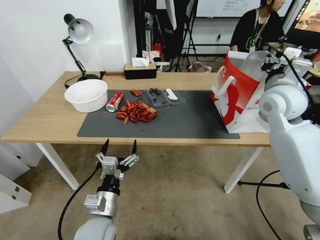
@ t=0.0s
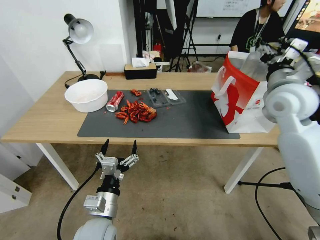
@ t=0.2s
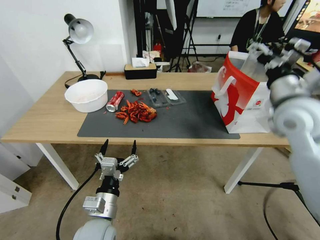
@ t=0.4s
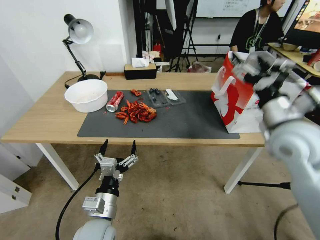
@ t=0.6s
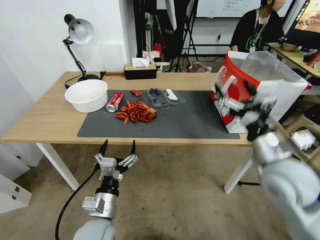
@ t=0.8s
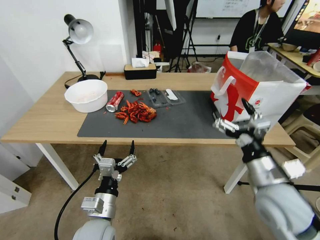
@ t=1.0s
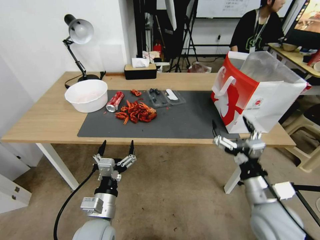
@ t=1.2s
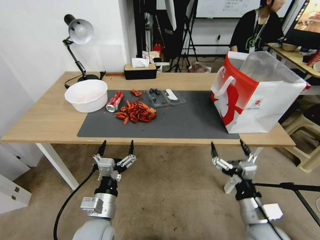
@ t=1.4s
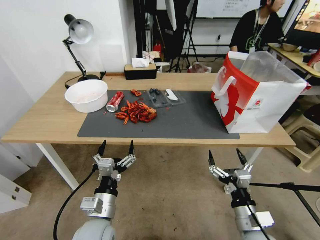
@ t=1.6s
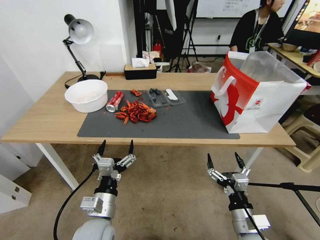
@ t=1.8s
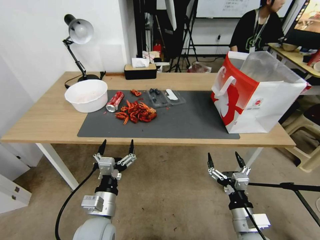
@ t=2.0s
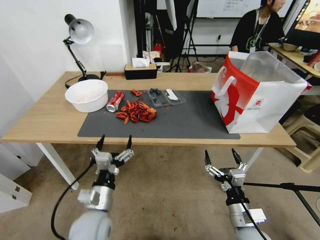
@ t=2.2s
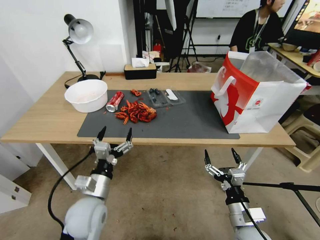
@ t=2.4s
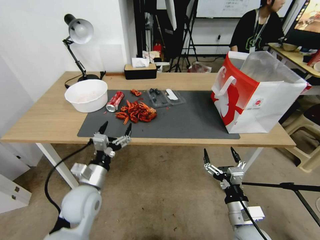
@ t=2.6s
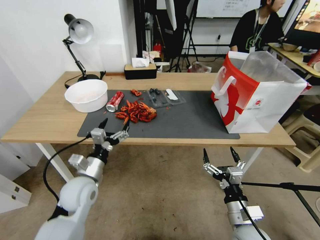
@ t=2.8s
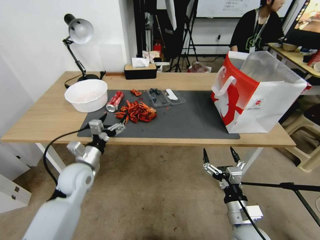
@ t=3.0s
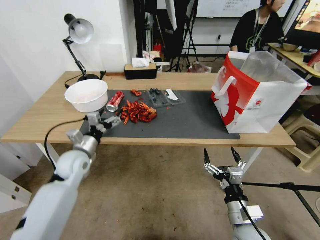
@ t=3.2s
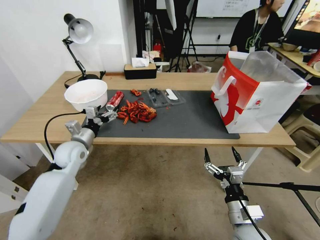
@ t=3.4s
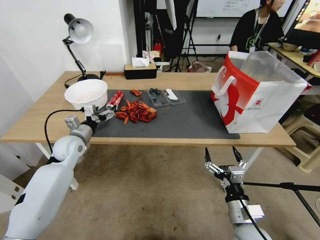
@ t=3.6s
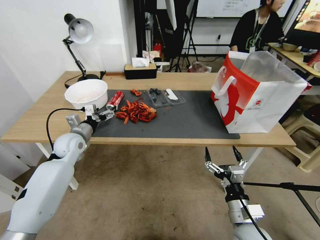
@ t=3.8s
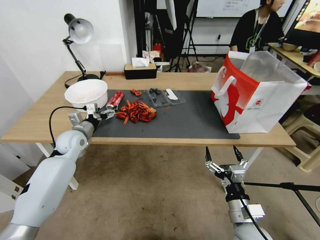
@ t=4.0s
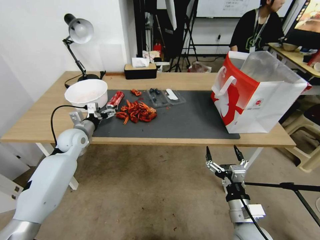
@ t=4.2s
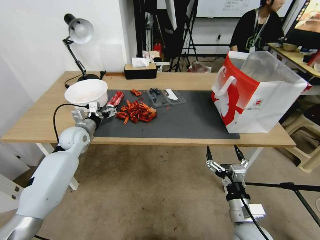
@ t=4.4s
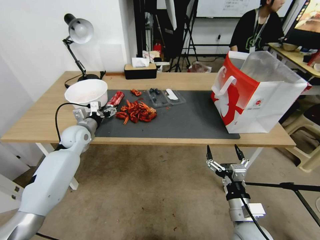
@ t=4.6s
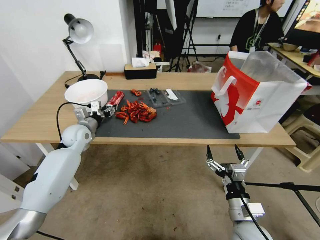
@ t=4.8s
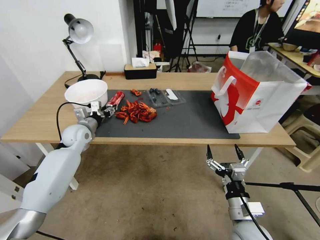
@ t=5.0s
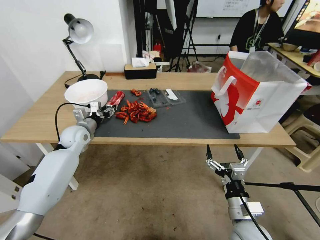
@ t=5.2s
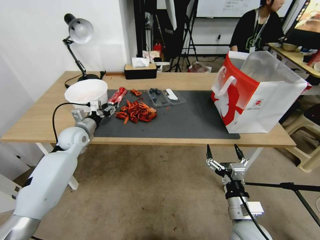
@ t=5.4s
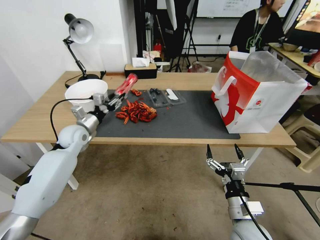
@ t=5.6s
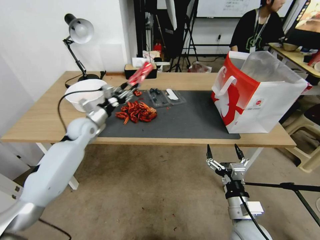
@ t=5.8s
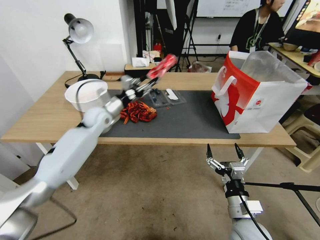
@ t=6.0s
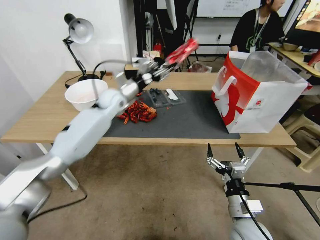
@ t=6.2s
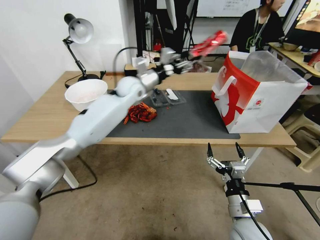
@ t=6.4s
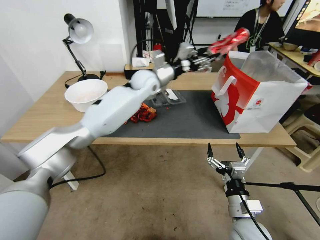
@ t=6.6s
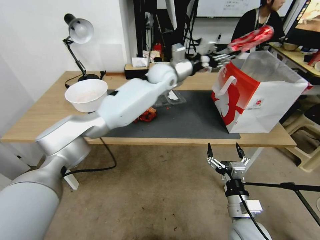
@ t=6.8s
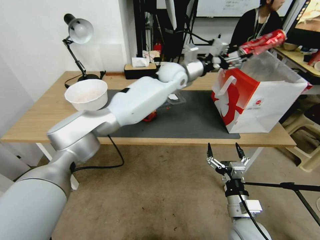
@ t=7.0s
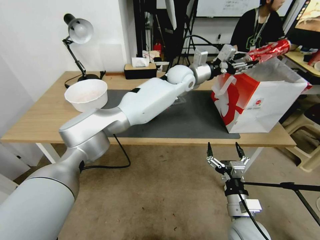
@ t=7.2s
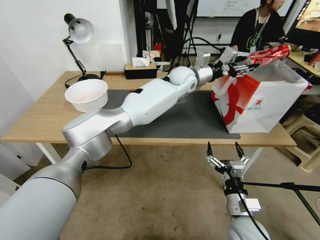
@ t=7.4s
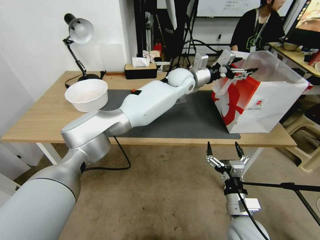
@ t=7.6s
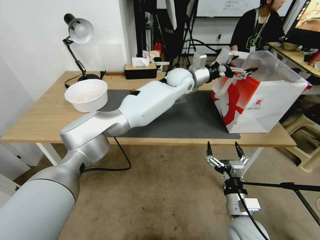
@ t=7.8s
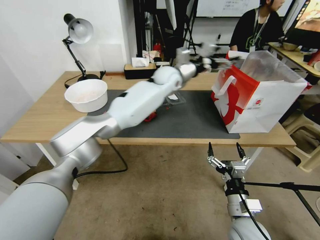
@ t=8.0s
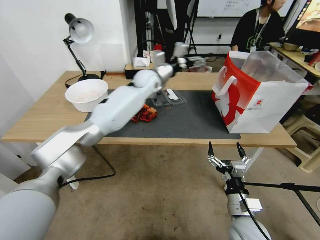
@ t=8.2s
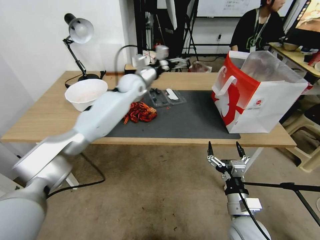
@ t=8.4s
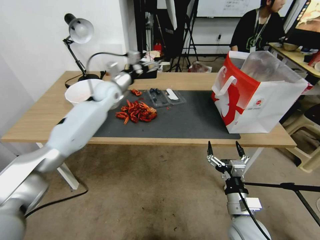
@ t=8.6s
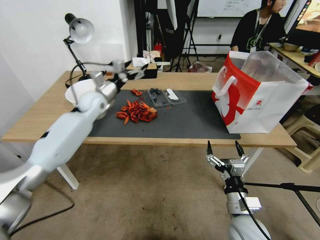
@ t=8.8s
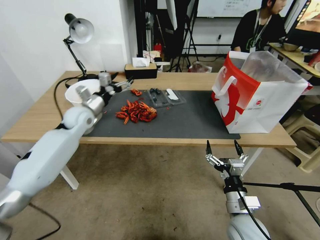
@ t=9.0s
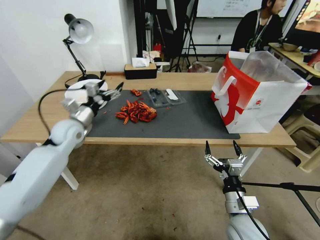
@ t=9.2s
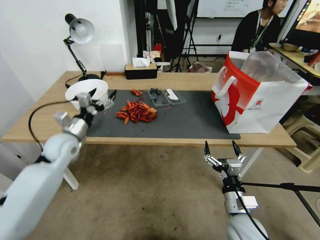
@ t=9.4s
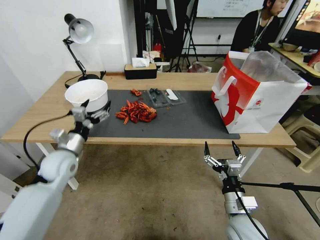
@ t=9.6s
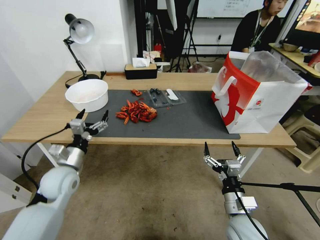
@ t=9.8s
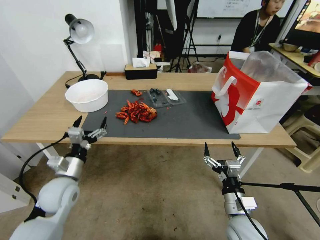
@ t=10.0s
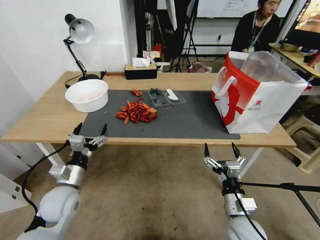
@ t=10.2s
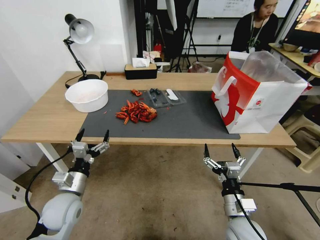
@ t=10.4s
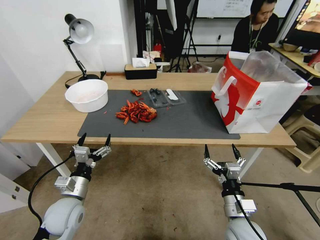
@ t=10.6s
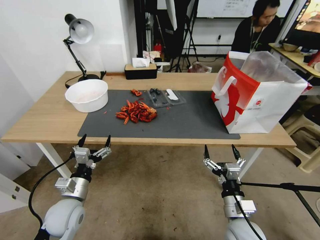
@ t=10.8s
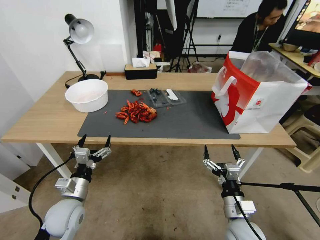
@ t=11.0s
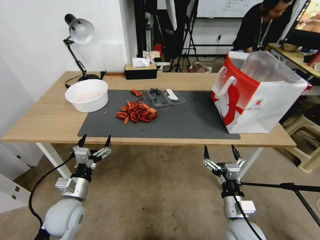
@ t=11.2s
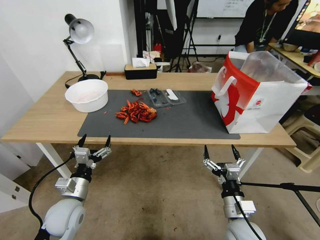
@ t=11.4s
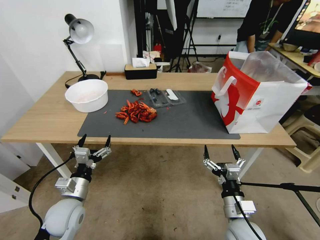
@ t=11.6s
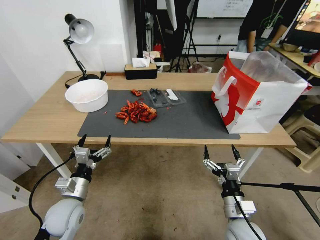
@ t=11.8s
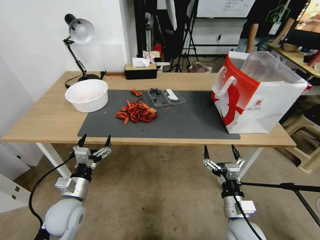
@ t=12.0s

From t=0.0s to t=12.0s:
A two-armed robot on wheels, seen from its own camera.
From t=0.0s to t=1.6s: The right gripper shifts approximately 40 cm backward and downward, and opens up.
From t=1.6s to t=3.0s: The left gripper shifts about 15 cm forward and to the left.
From t=3.0s to t=4.4s: The left gripper is displaced forward and to the left by approximately 15 cm.
From t=4.4s to t=6.0s: The left gripper travels to the right, upward and forward by some 10 cm, and closes its fingers.
From t=6.0s to t=7.6s: The left gripper heads to the right, covering approximately 30 cm, and opens.
From t=7.6s to t=9.0s: The left gripper travels to the left by approximately 35 cm, and opens its fingers.
From t=9.0s to t=10.4s: The left gripper goes about 30 cm backward and downward.
From t=10.4s to t=12.0s: The grippers move only a little.

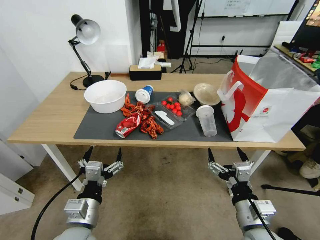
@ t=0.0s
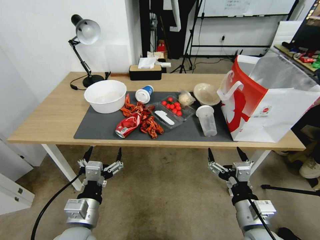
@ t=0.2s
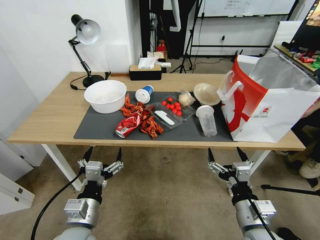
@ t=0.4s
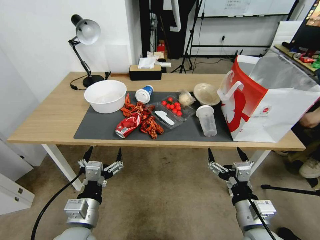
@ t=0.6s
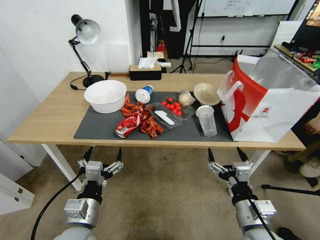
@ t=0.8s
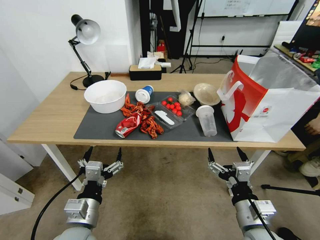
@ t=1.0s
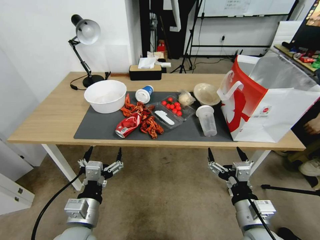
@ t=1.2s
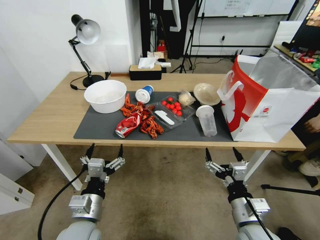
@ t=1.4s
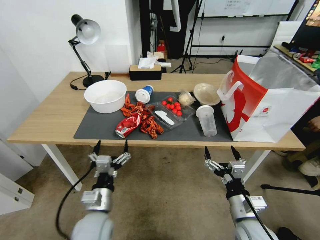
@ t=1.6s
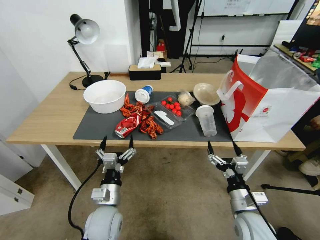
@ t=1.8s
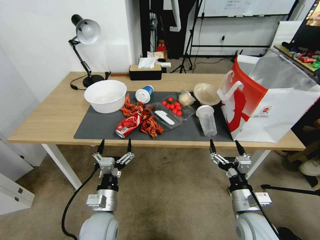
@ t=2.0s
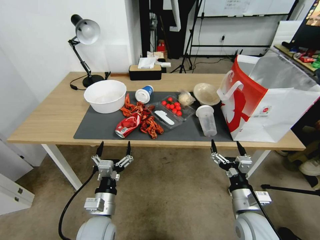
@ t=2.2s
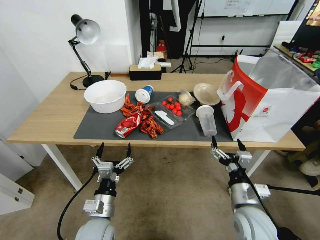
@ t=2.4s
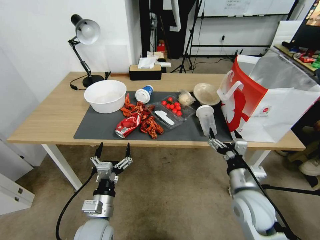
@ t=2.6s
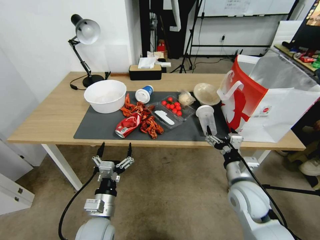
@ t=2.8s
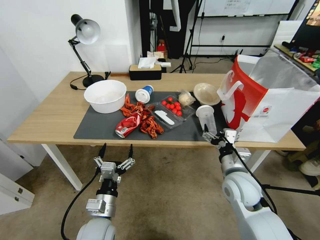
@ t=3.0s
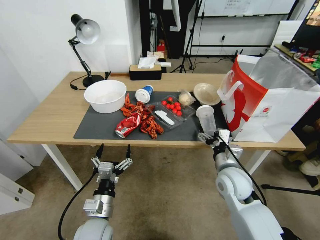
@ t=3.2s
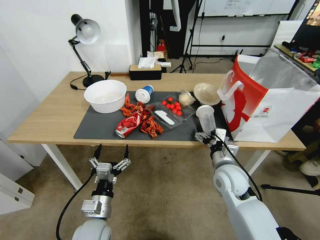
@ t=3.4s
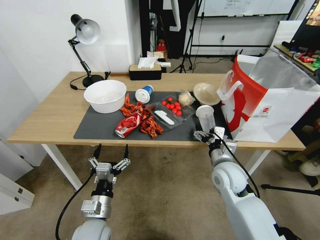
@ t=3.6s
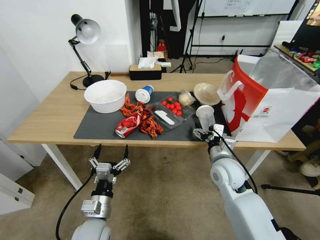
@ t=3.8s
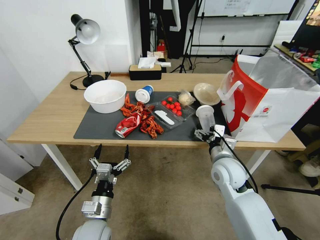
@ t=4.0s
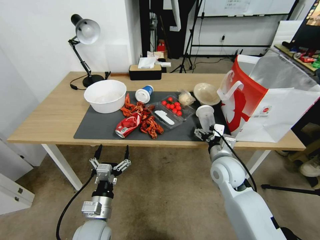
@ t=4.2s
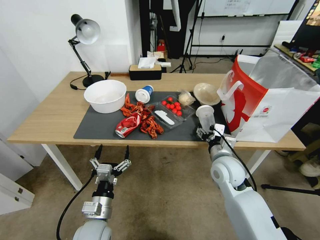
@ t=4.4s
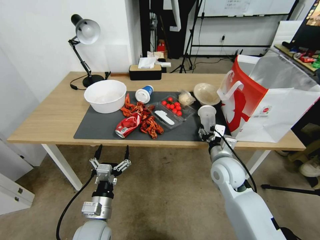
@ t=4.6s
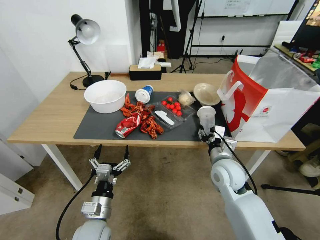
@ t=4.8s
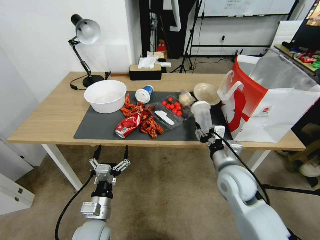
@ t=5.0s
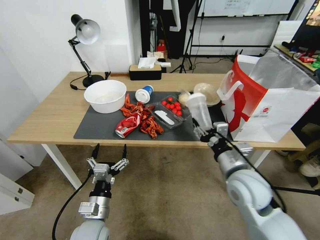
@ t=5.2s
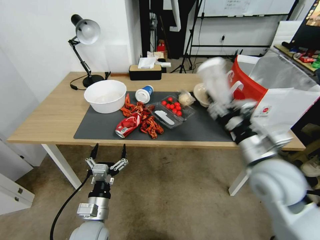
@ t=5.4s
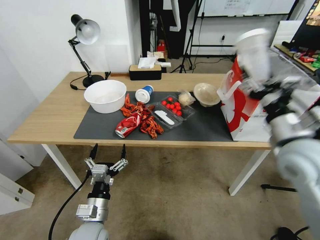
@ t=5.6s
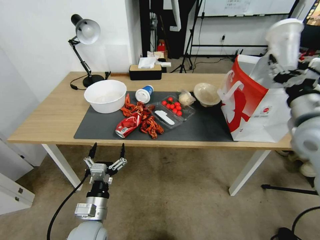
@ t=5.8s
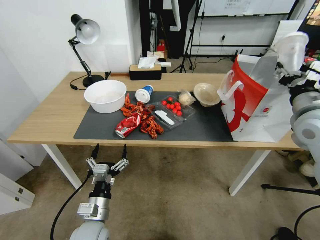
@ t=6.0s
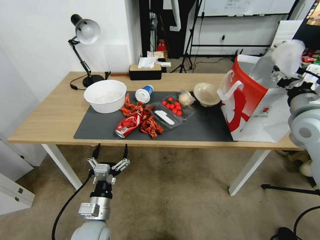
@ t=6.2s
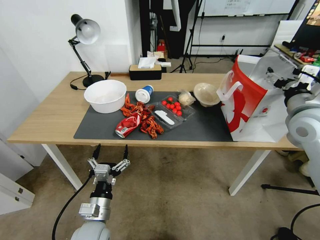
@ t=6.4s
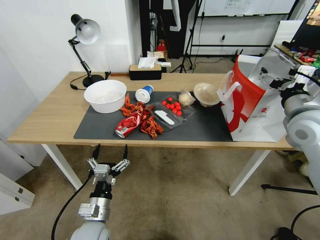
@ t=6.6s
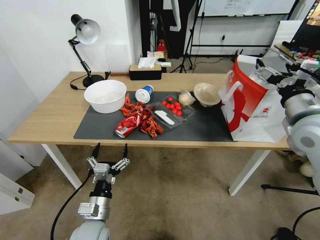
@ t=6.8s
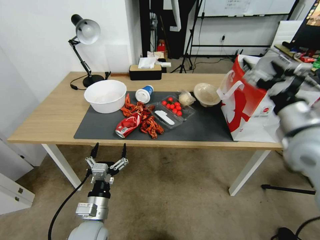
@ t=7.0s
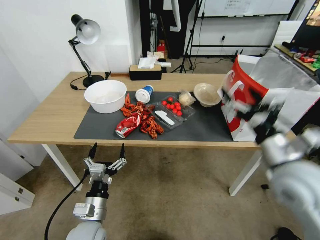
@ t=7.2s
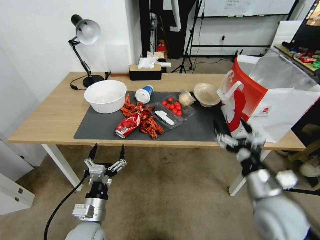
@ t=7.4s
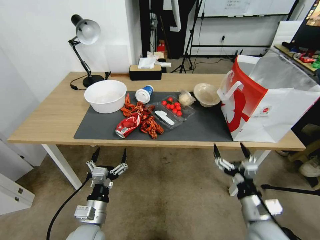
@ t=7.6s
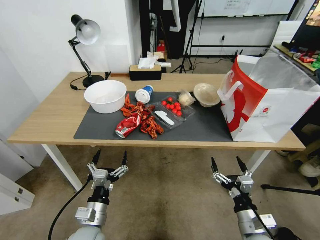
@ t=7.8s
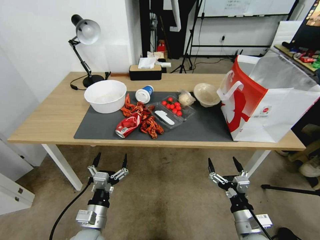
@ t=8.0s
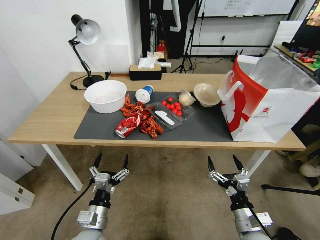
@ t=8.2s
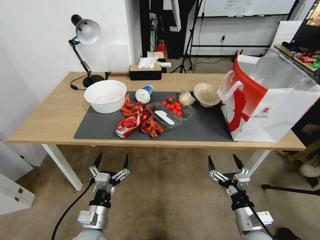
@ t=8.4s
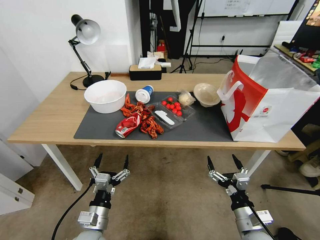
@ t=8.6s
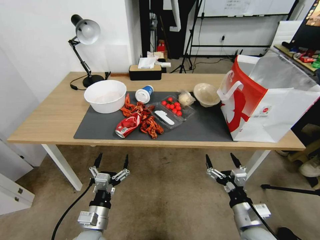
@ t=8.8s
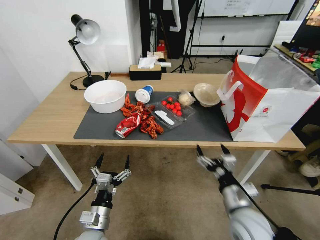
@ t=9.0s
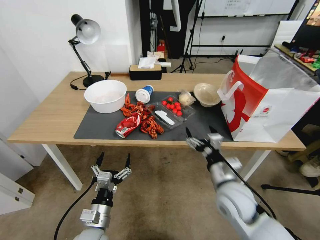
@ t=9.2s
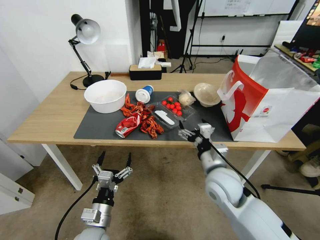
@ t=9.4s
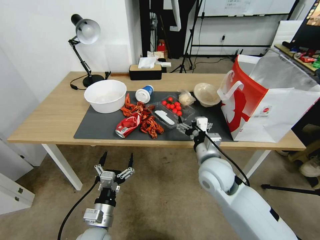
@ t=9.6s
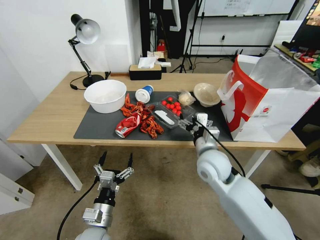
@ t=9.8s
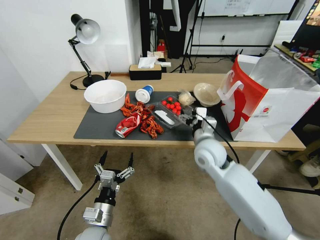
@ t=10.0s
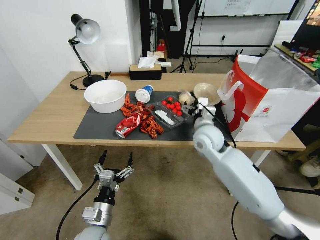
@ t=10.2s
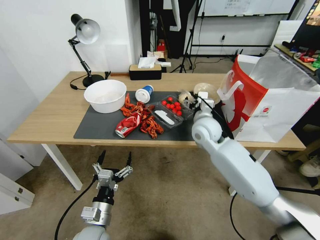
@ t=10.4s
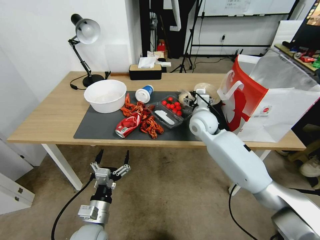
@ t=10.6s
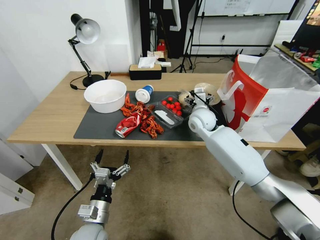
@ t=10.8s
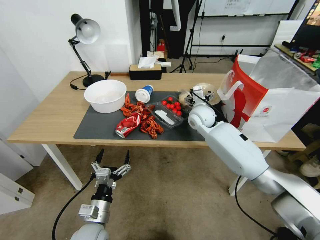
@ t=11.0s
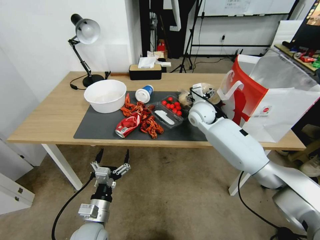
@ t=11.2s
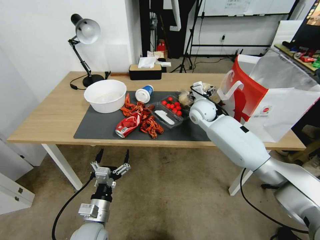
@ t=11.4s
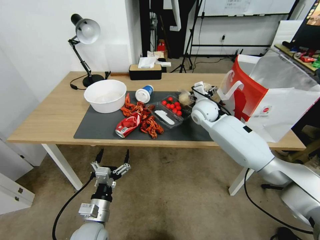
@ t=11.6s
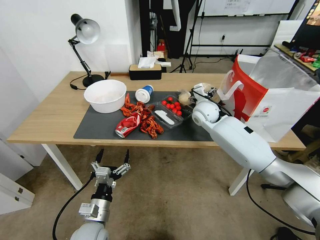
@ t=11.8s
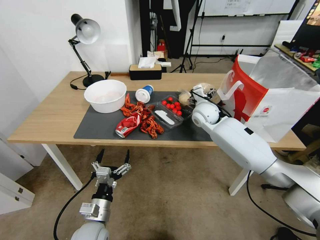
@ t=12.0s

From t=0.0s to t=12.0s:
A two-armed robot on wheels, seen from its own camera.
From t=1.6s to t=3.0s: The right gripper heads forward, covering roughly 10 cm.
From t=3.0s to t=4.4s: The right gripper moves about 5 cm.
From t=4.4s to t=6.0s: The right gripper travels upward and to the right by approximately 25 cm.
From t=6.0s to t=7.6s: The right gripper heads downward and backward, covering about 30 cm, and opens its fingers.
From t=7.6s to t=9.0s: The right gripper changes place by approximately 5 cm.
From t=9.0s to t=10.4s: The right gripper heads forward and upward, covering approximately 25 cm.
From t=10.4s to t=12.0s: The right gripper heads forward, covering some 10 cm.
